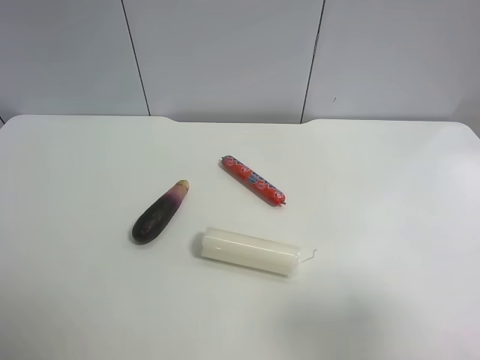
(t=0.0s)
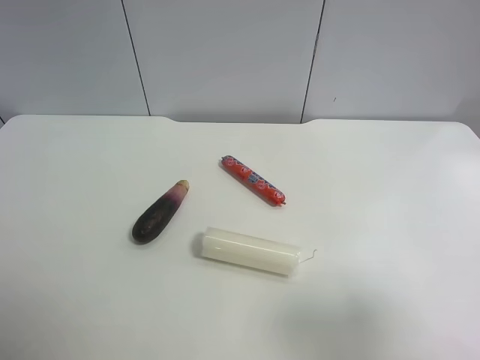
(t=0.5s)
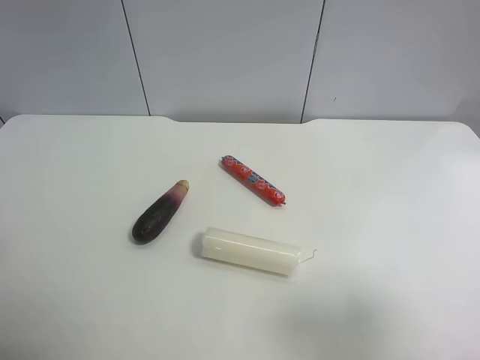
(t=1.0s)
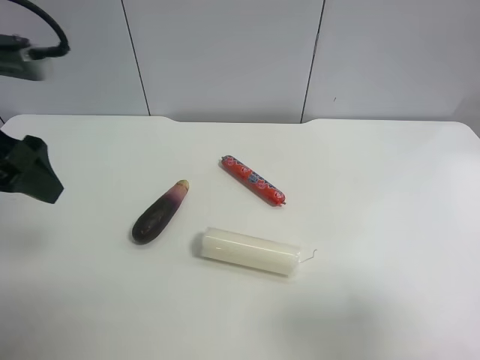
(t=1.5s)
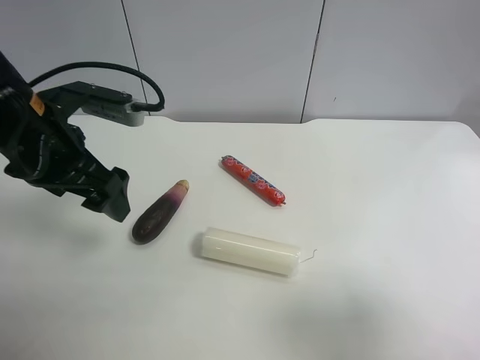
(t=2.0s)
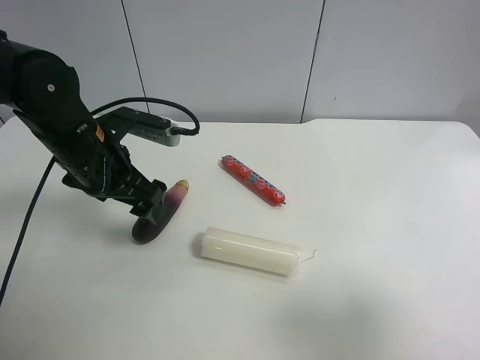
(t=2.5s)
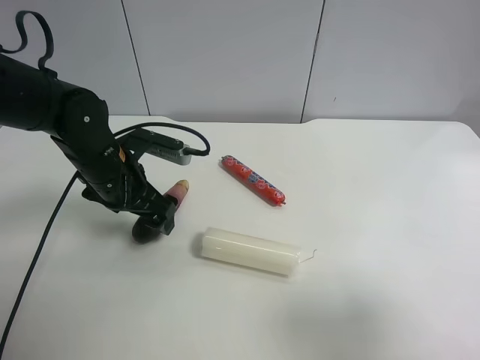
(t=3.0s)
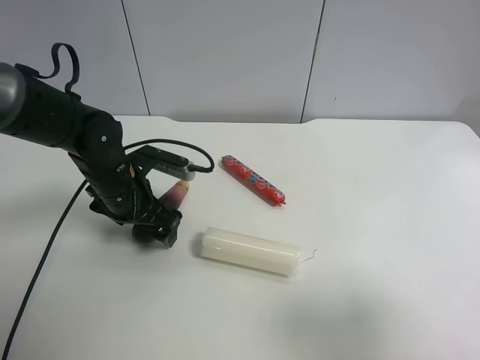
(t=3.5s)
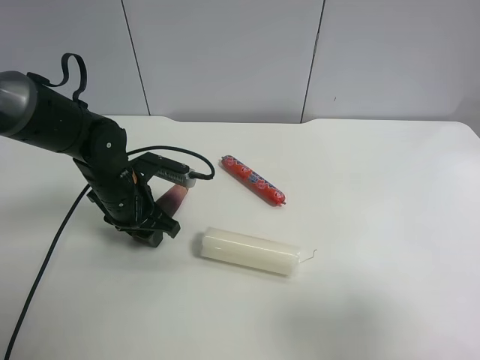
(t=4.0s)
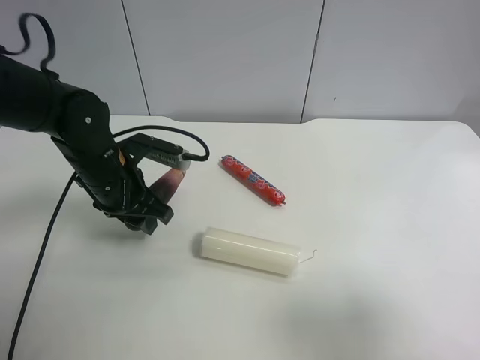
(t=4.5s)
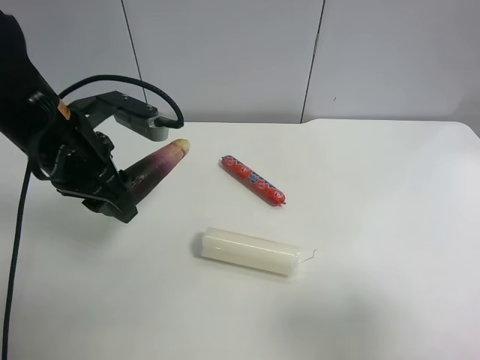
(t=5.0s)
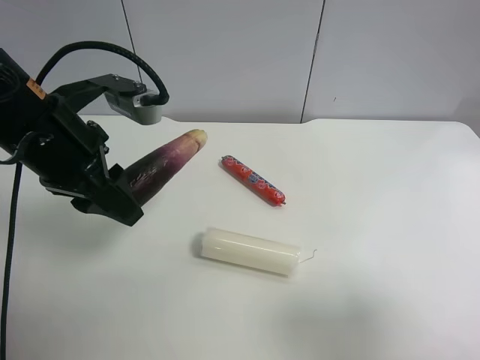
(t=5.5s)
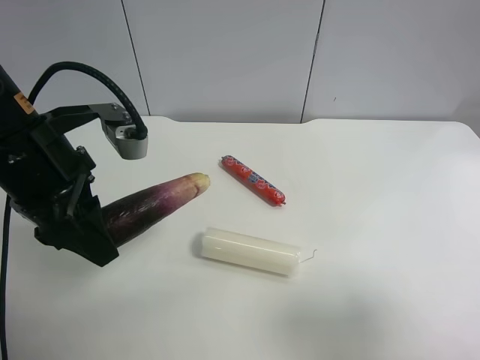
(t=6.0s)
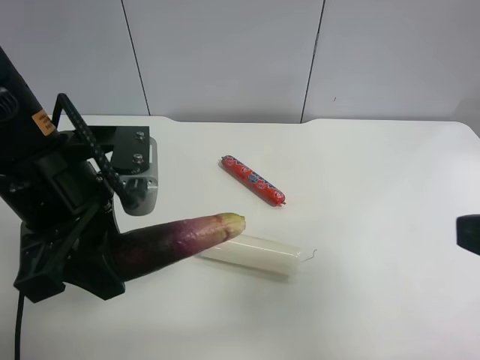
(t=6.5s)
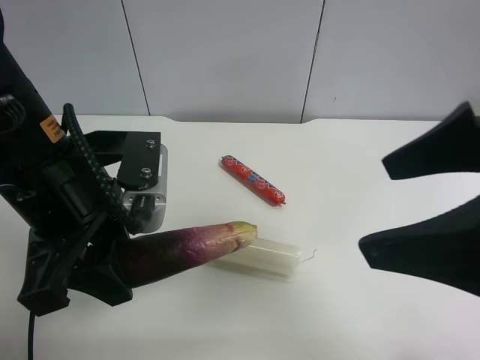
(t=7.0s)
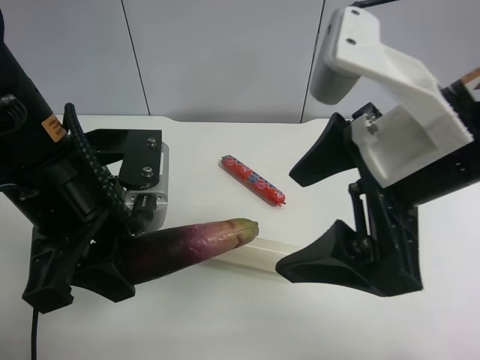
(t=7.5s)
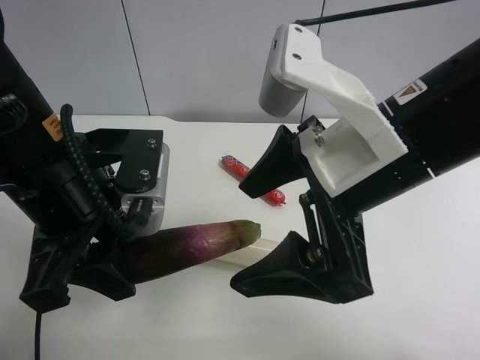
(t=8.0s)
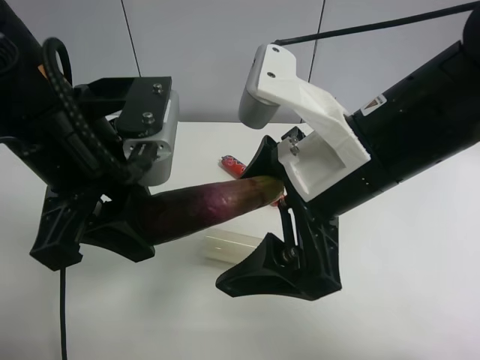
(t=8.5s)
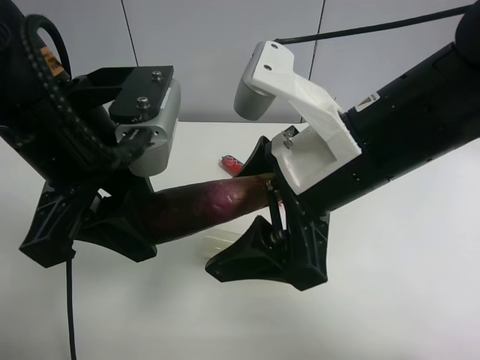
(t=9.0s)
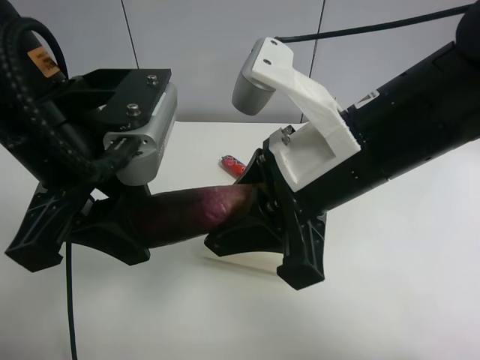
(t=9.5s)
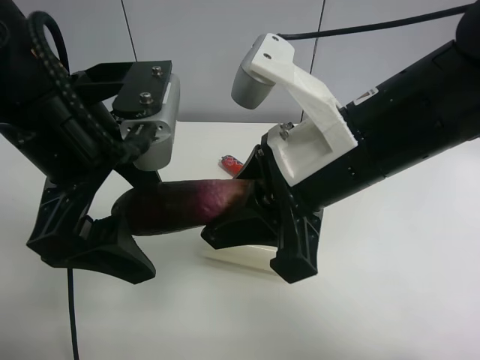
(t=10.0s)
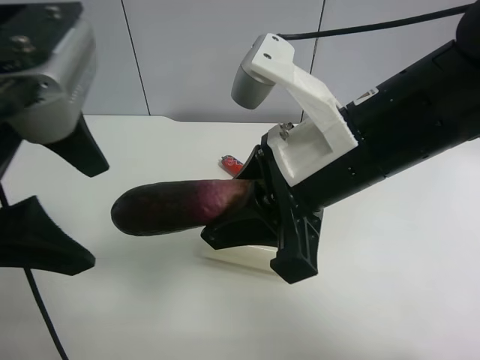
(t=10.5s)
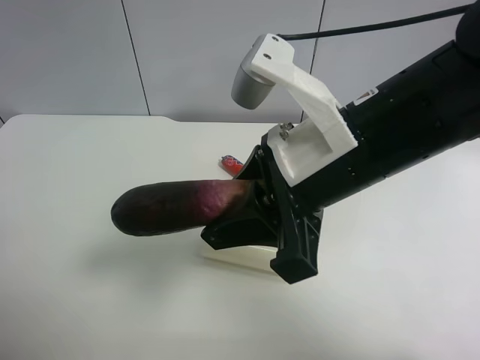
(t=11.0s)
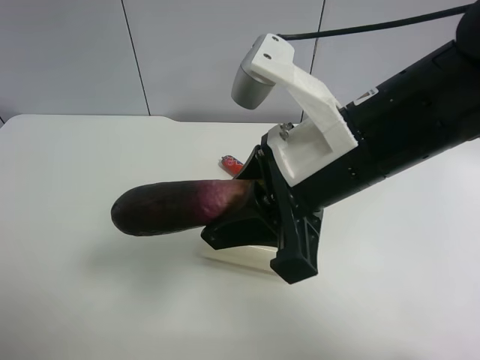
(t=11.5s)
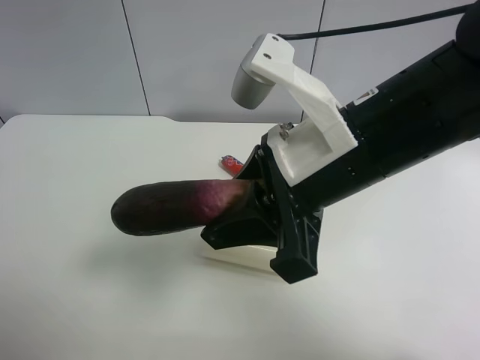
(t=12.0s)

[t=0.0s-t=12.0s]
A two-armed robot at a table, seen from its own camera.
Task of the whole recording: use the left gripper to pick up the item and transfer it from the left gripper to the right gripper.
t=0.0s to t=2.0s: The left gripper moves forward and to the right, some 25 cm.
t=2.0s to t=4.0s: The left gripper goes about 15 cm downward, and closes its fingers.
t=4.0s to t=6.0s: The left gripper travels upward and backward by some 20 cm.
t=6.0s to t=8.0s: The left gripper ends up some 5 cm from where it was, while the right gripper moves to the left and forward, roughly 25 cm.
t=8.0s to t=10.0s: The left gripper opens its fingers, while the right gripper closes its fingers.
t=10.0s to t=12.0s: The left gripper moves to the left and backward, some 30 cm.

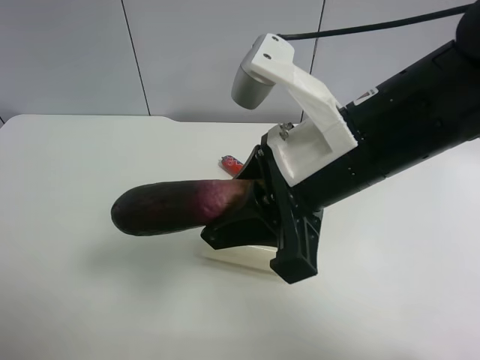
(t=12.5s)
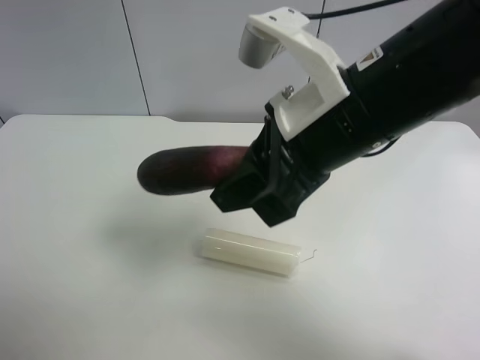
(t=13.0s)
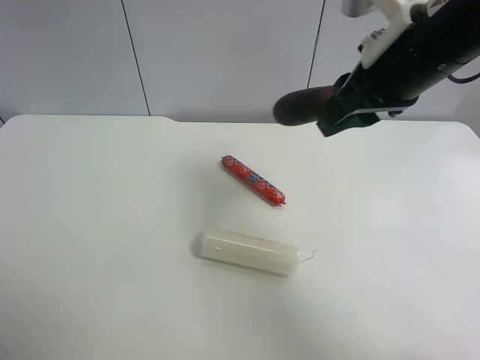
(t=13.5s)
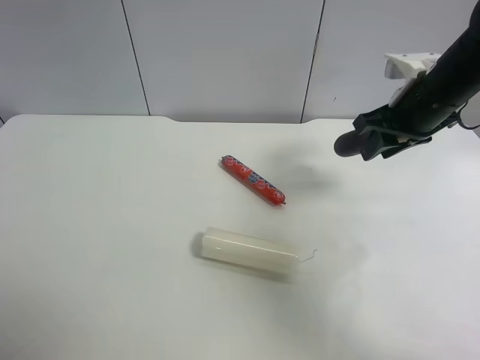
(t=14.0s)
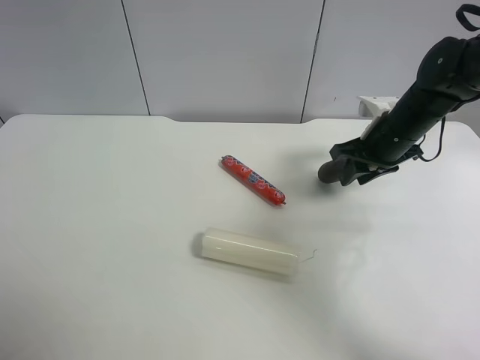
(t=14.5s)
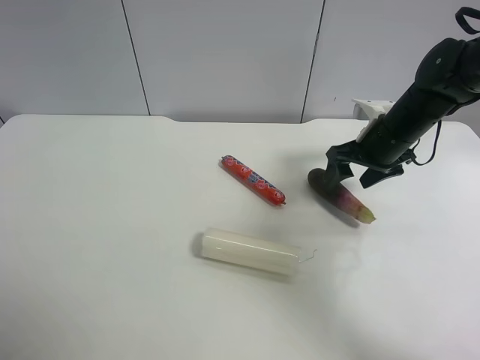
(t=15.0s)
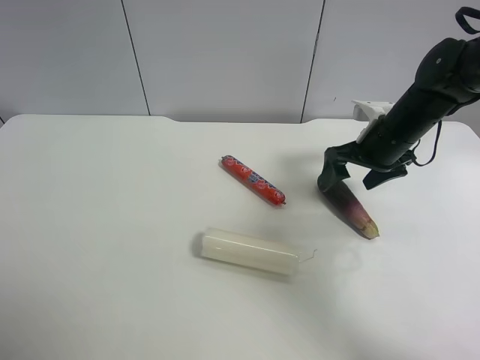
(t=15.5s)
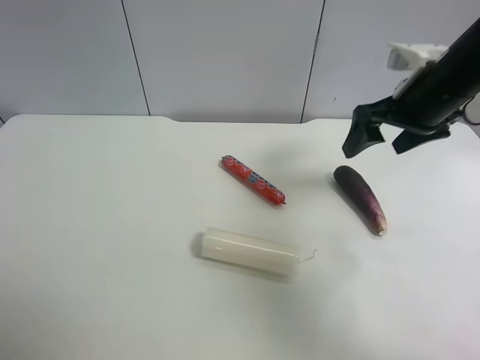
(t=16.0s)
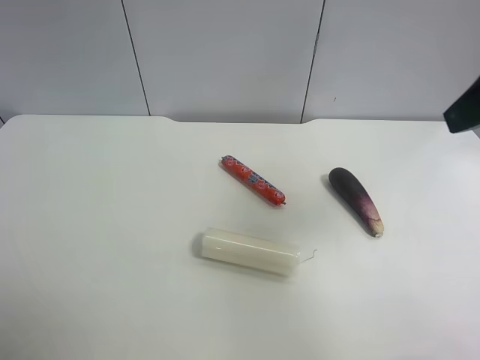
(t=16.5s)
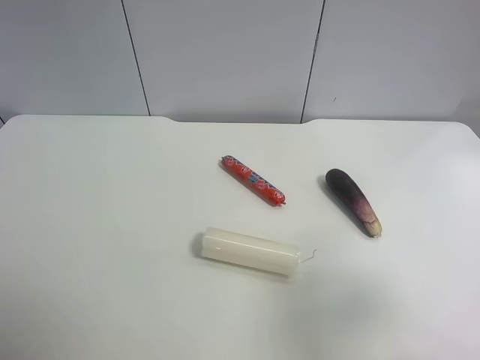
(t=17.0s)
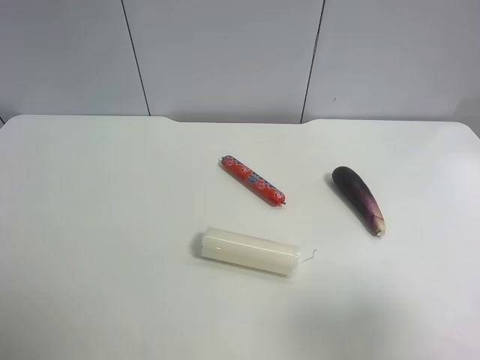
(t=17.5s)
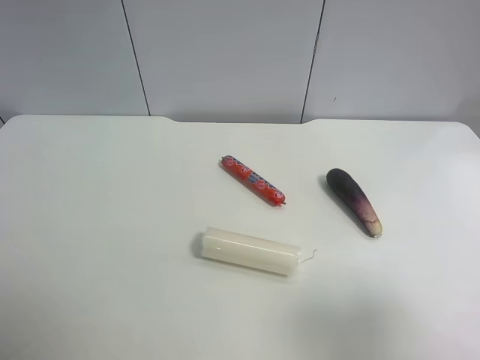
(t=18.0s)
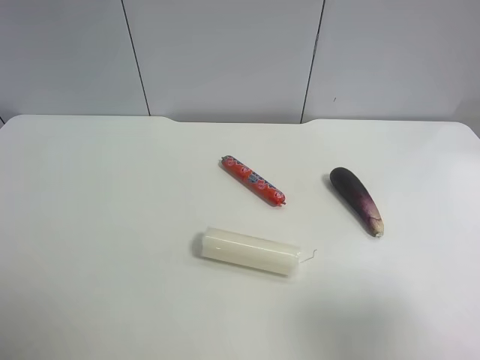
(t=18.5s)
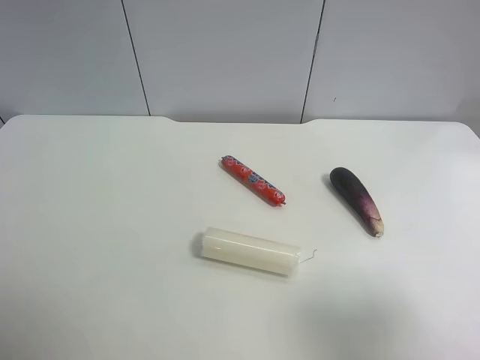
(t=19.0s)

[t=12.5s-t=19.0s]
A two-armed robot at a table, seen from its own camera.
Task of the whole recording: use the left gripper to pick up the item and transfer it from the left gripper to the right gripper.
t=12.5s to t=14.5s: The right gripper heads forward, to the right and downward, covering some 25 cm.
t=14.5s to t=17.0s: The right gripper heads backward, covering approximately 30 cm, and opens up.
